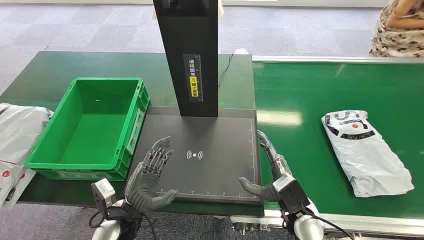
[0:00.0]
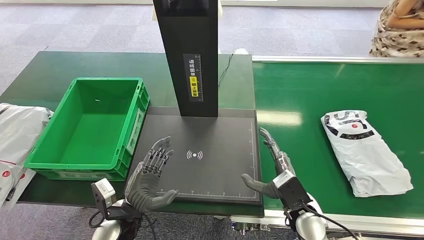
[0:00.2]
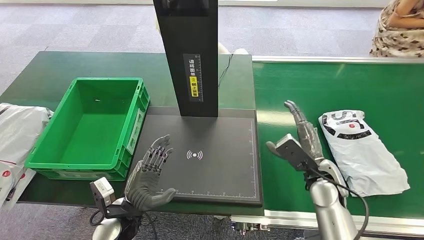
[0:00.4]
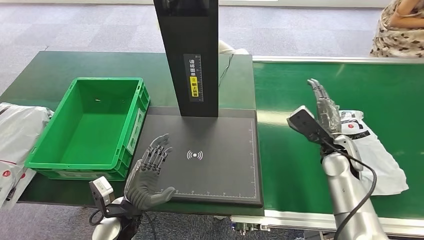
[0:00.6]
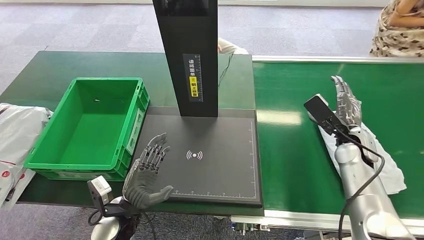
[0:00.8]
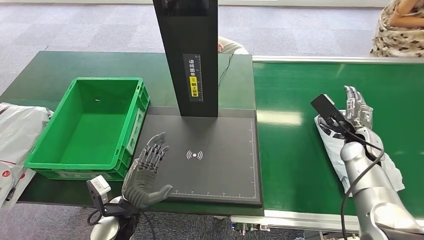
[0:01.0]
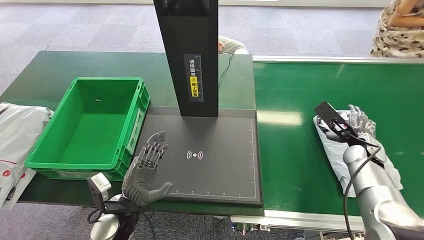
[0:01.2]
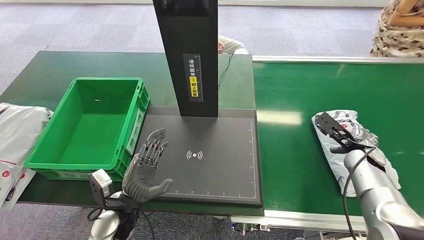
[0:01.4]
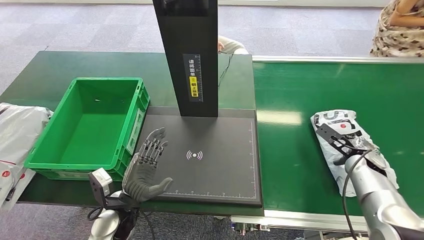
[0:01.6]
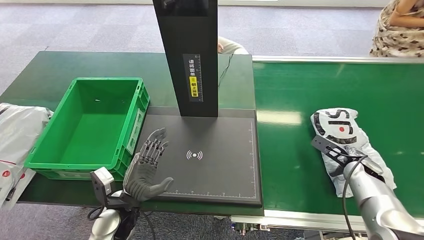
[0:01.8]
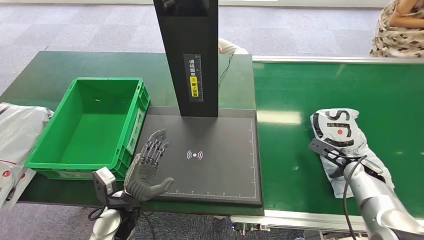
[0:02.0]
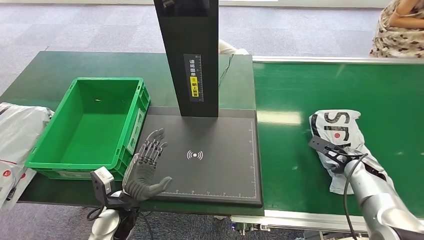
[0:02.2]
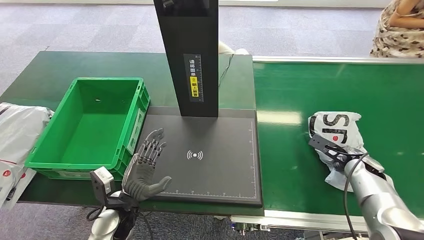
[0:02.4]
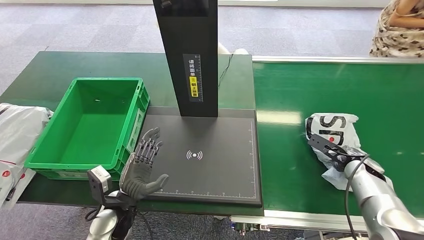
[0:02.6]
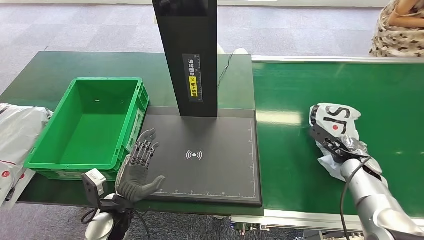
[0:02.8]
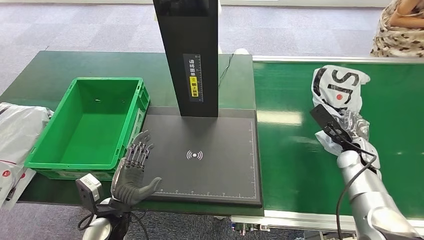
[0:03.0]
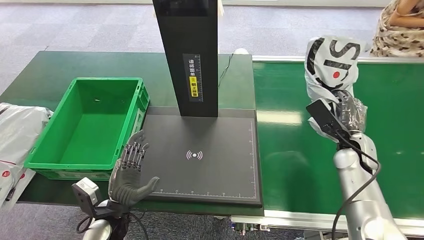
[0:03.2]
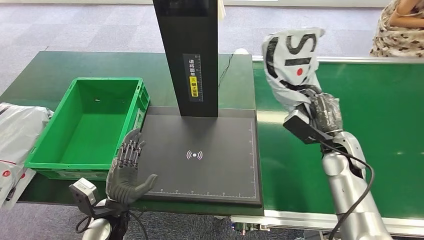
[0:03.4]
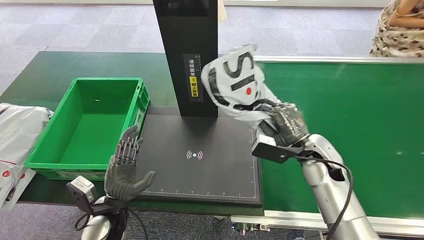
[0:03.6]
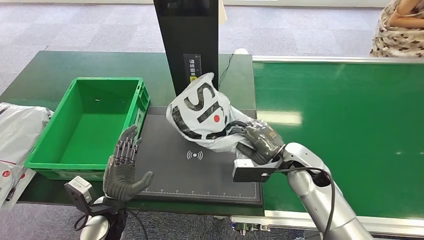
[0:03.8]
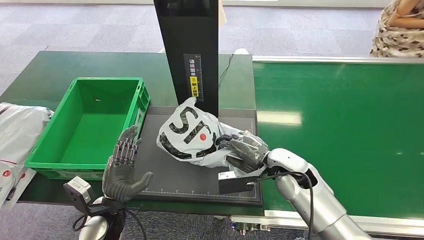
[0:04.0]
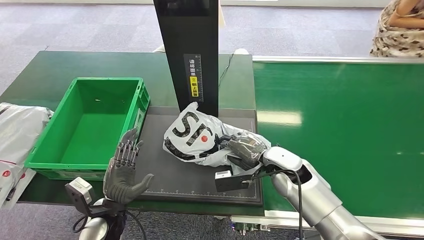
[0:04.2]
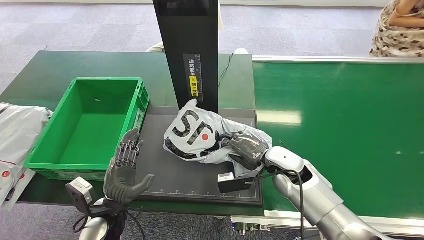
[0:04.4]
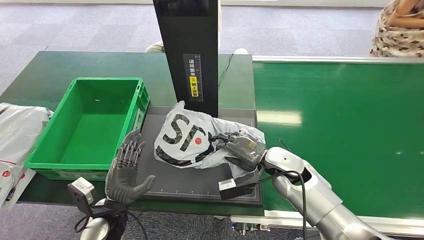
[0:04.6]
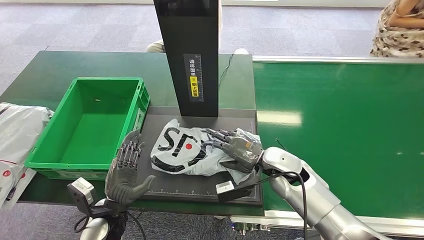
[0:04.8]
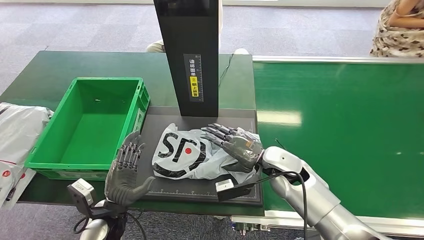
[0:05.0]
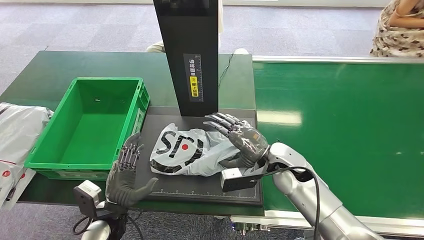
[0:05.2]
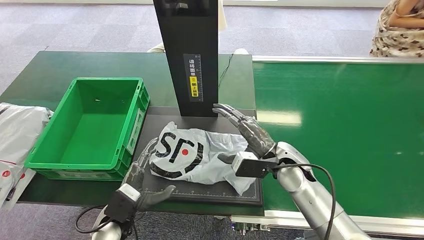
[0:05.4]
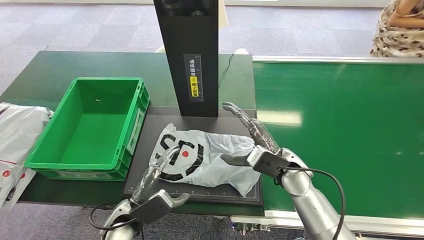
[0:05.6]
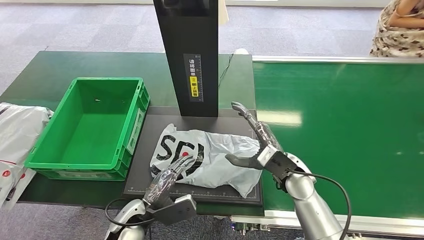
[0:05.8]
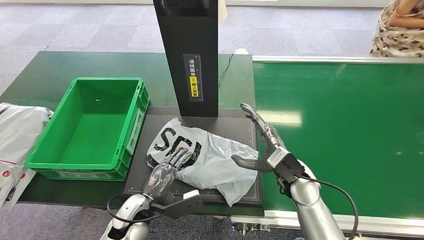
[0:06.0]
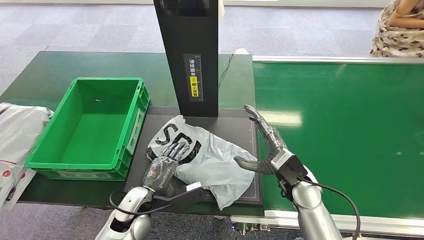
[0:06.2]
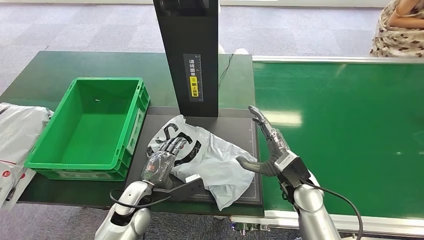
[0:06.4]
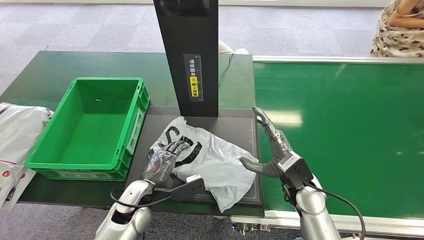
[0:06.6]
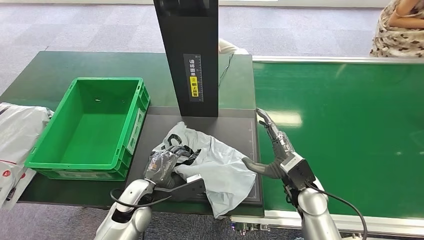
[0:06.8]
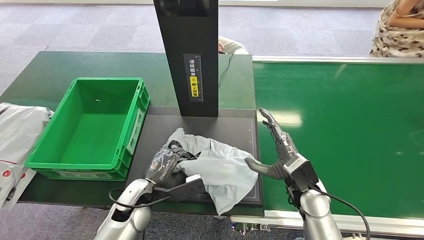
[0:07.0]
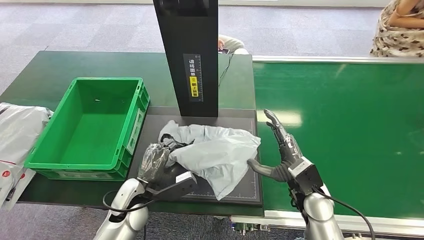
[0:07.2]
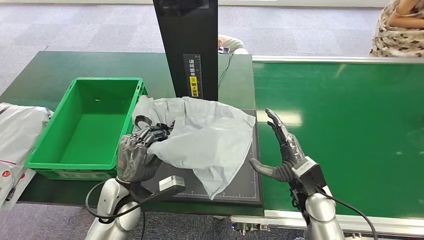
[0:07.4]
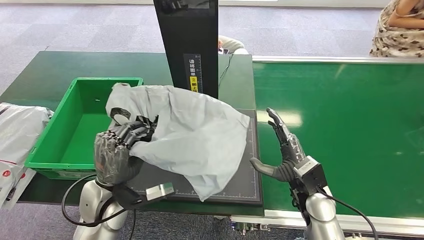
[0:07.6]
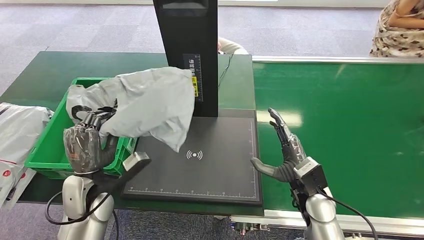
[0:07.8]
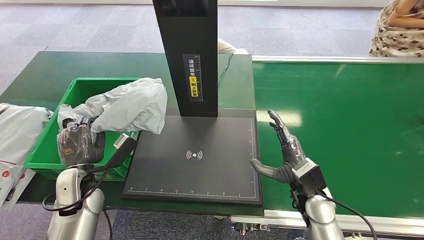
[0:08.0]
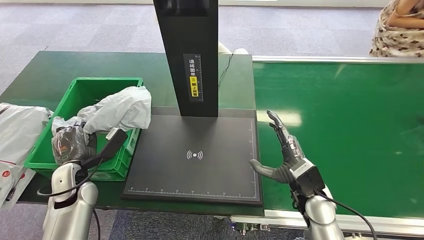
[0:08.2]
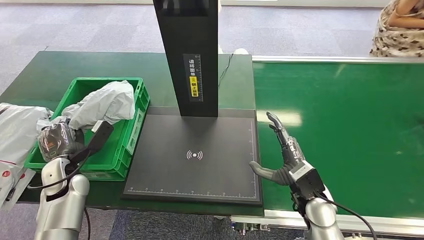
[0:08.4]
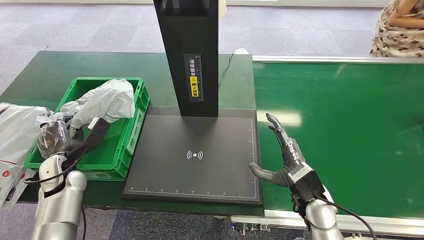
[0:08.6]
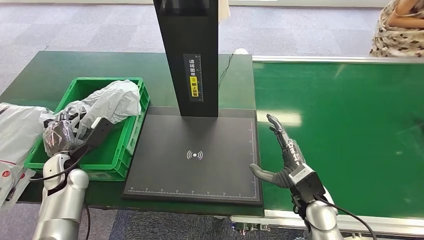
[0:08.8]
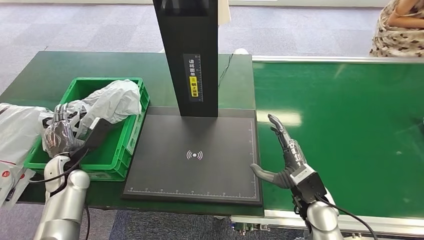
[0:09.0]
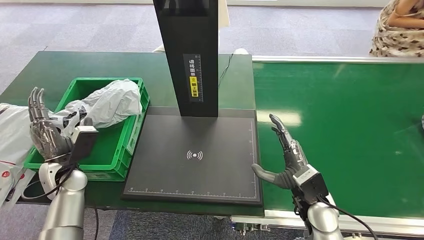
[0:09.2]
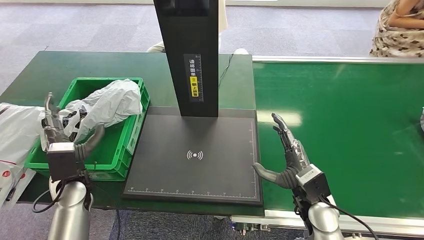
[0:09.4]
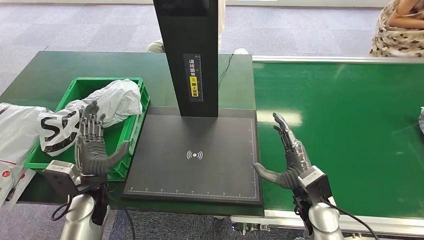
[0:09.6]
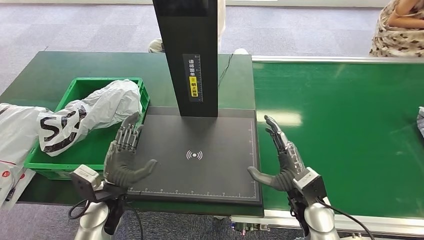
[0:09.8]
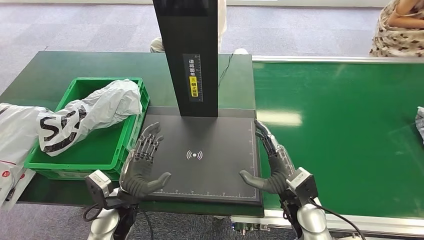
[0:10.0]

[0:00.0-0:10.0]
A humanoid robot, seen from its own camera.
Task of the whole recording: Weigh the package on the weighing device and place it in the left basket.
Step, 0:00.0 to 0:03.4: Pick up the package from the conveyor belt.
Step, 0:03.6 to 0:05.6: Place the package onto the inbound machine.
Step, 0:05.8 to 0:07.4: Pick up the package from the inbound machine.
Step, 0:07.6 to 0:10.0: Place the package into the parcel locker.
0:04.2 to 0:05.8: The left hand moves some 5 cm.
0:05.8 to 0:07.2: The right hand ends up approximately 5 cm from where it was, while the left hand ends up approximately 5 cm from where it was.
0:07.2 to 0:08.6: The left hand shifts approximately 20 cm to the left.
0:08.6 to 0:10.0: The left hand is displaced to the right and backward by approximately 20 cm.
